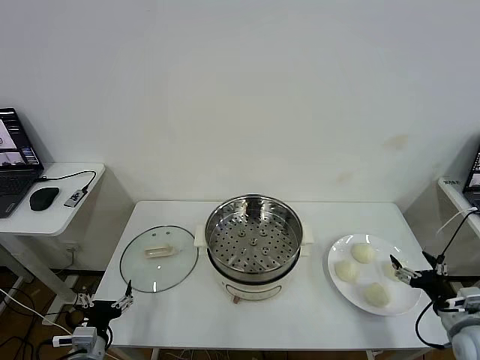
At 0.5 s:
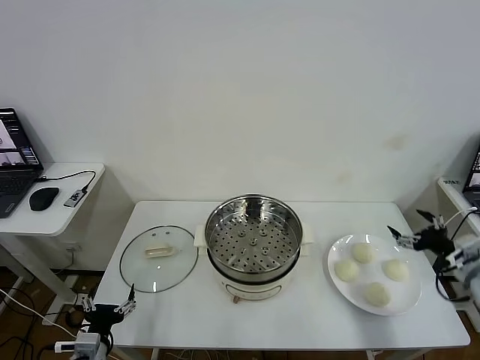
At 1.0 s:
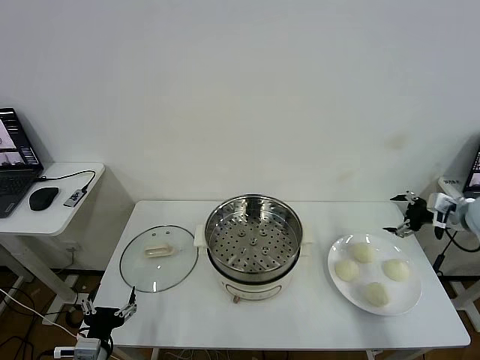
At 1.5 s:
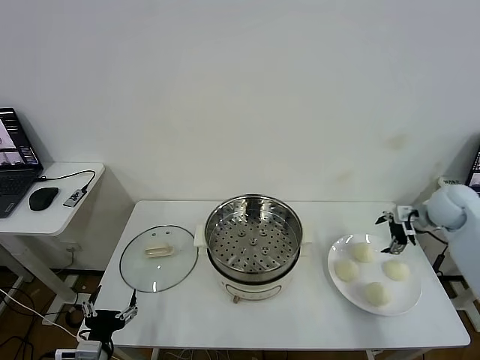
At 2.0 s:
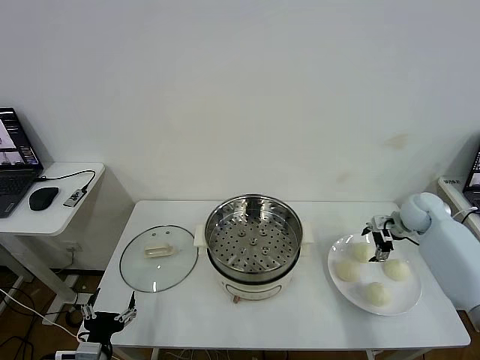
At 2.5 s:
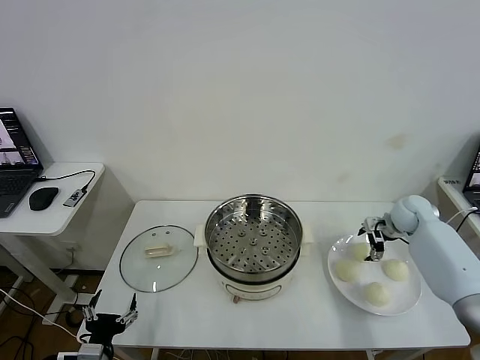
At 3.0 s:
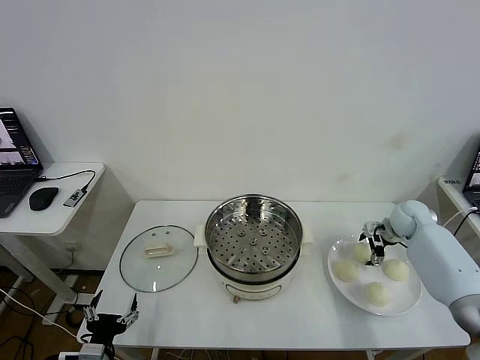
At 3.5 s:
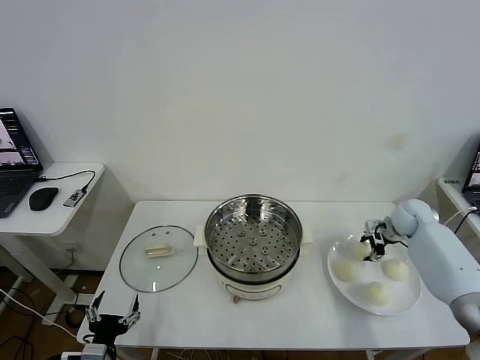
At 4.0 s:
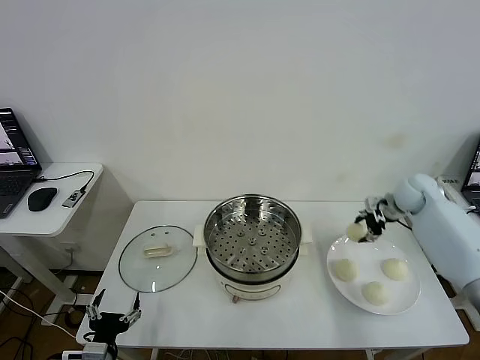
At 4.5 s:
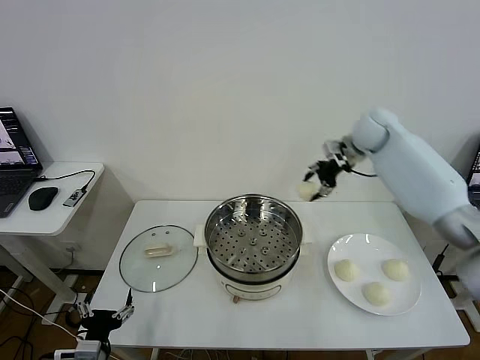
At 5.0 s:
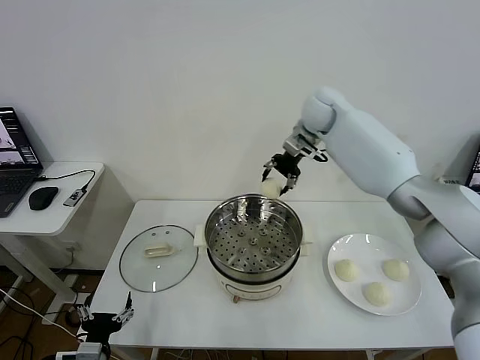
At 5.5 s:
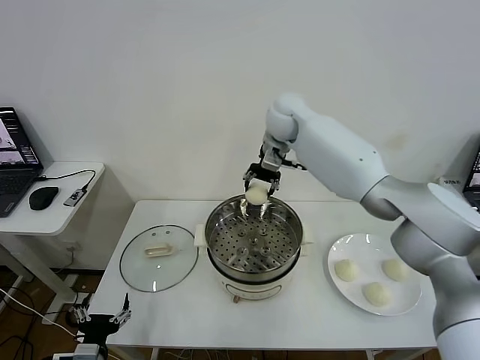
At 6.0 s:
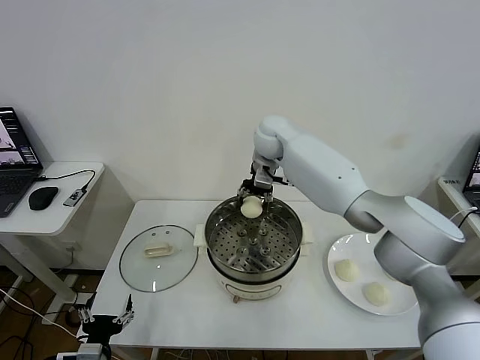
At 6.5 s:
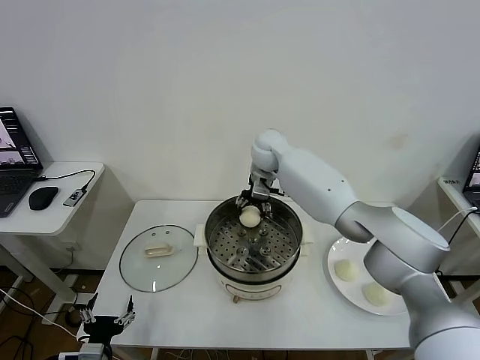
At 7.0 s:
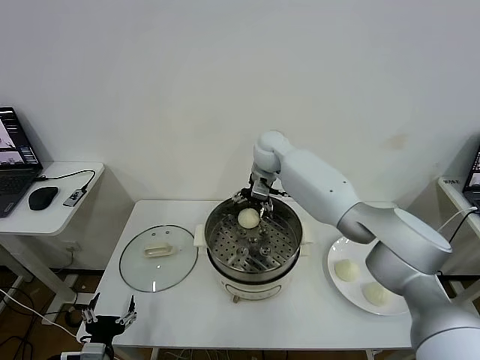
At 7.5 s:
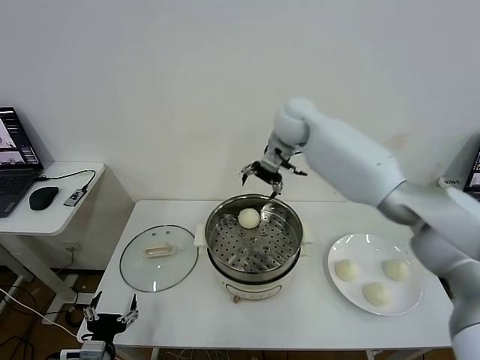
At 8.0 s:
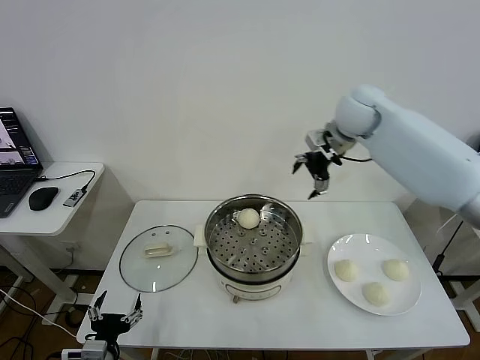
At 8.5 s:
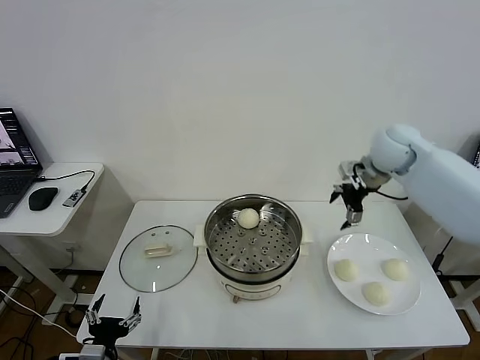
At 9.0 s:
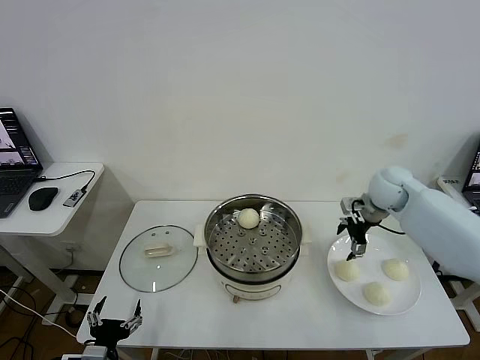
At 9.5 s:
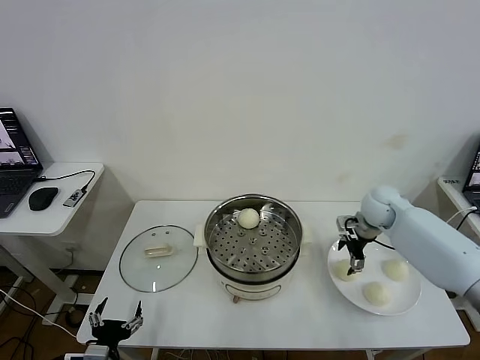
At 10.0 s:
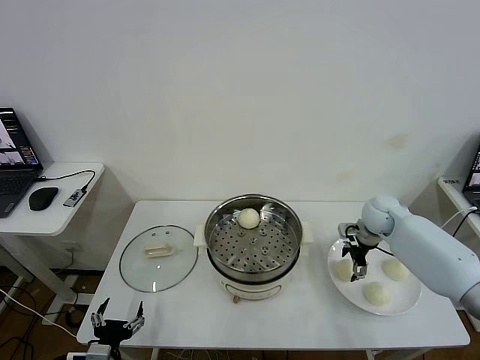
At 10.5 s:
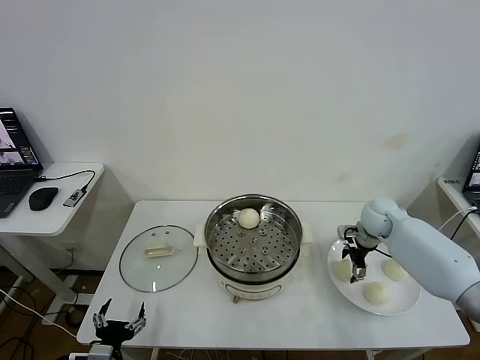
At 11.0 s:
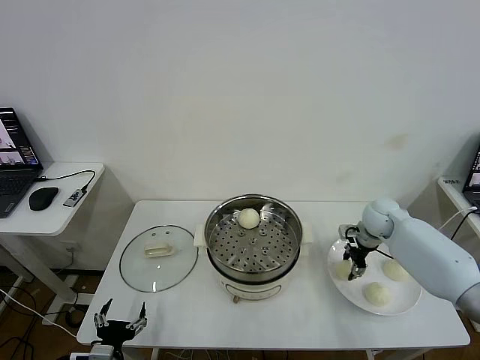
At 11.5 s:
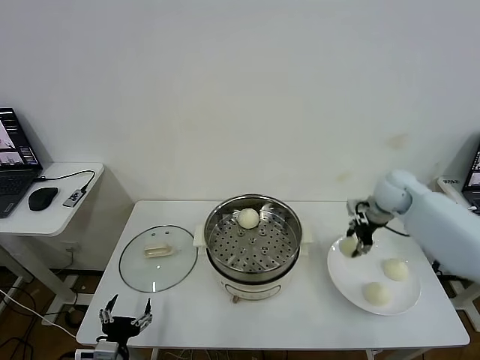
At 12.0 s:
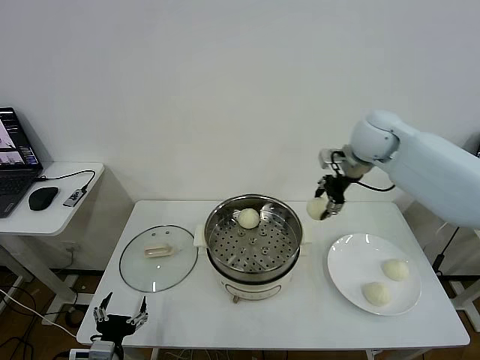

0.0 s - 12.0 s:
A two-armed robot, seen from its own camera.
Task of the whole recording: take steamed baozi put them in steamer then cover it.
Step, 0.0 s - 3.5 s: Grasp the baozi in the plate with right gripper.
Step, 4.0 s - 7.0 s: Place the baozi on the steamer with right gripper.
Step, 7.5 s - 11.0 s: Grasp the baozi in the plate with right gripper.
2.0 s - 4.0 s: The right gripper shifts approximately 10 cm upward, and closes up.
4.0 s - 6.0 s: The right gripper goes approximately 35 cm to the left.
6.0 s - 8.0 s: The right gripper goes roughly 20 cm to the right and upward, and opens up.
8.0 s - 10.0 s: The right gripper shifts approximately 25 cm downward.
10.0 s - 12.0 s: The right gripper moves upward and to the left, approximately 25 cm, and closes.

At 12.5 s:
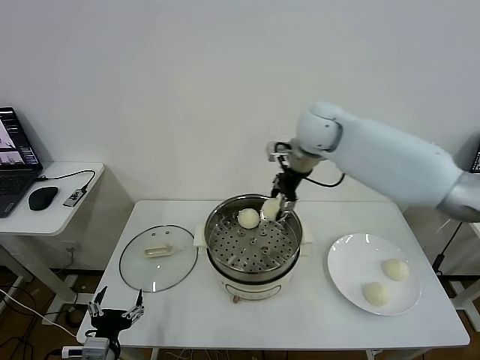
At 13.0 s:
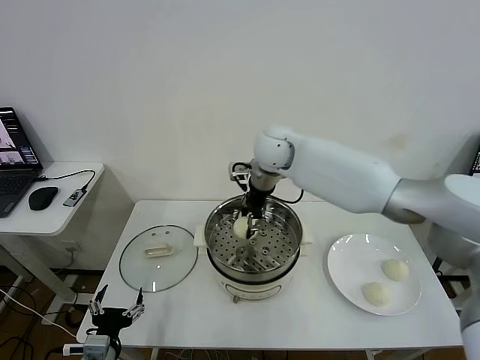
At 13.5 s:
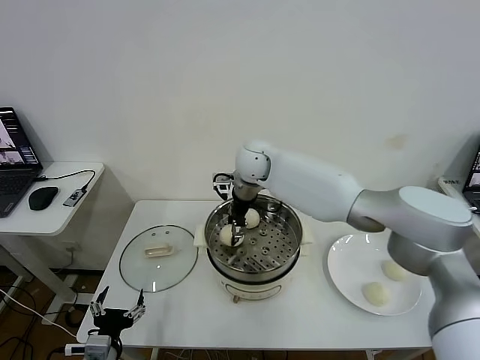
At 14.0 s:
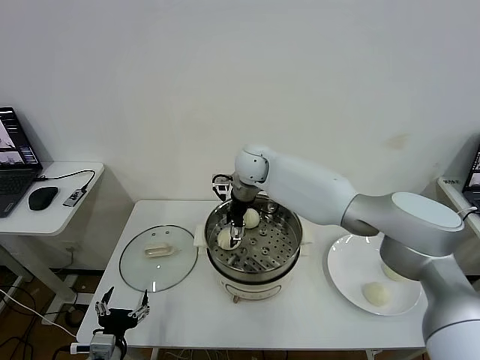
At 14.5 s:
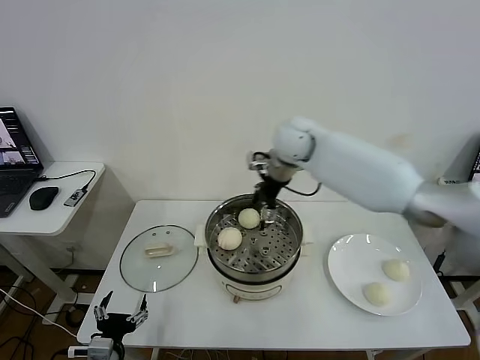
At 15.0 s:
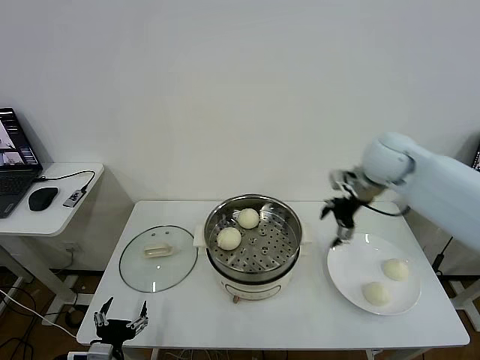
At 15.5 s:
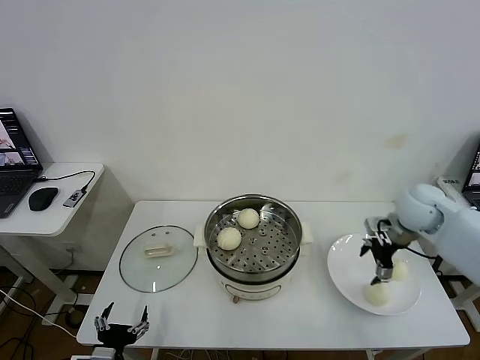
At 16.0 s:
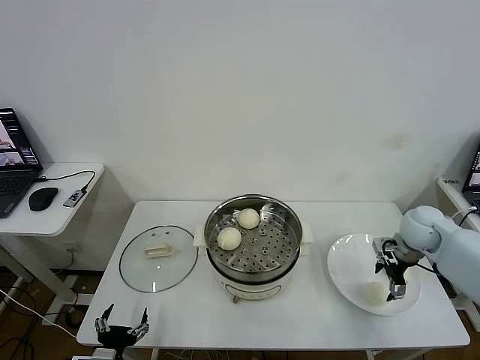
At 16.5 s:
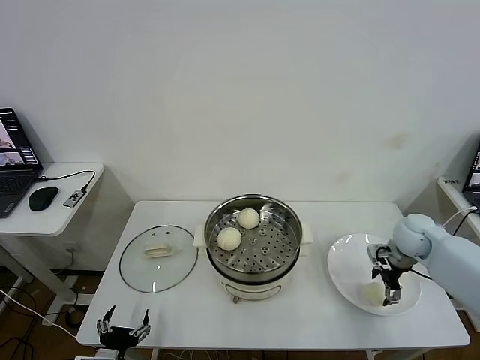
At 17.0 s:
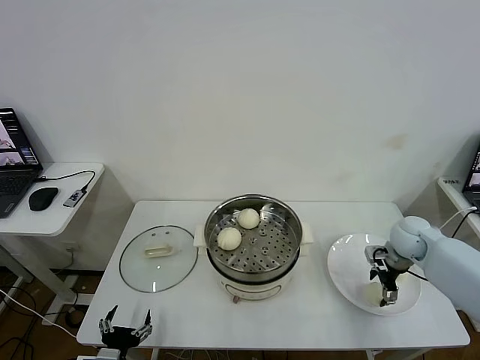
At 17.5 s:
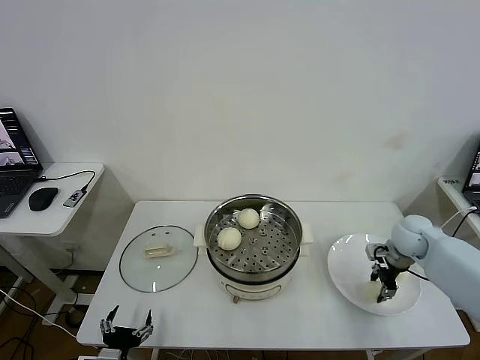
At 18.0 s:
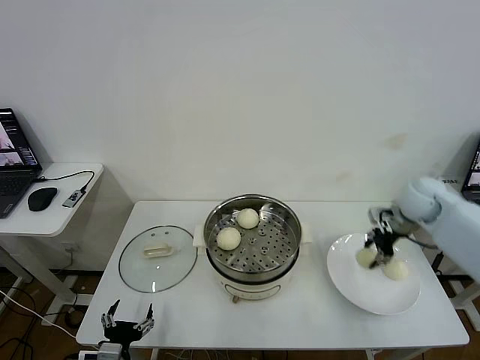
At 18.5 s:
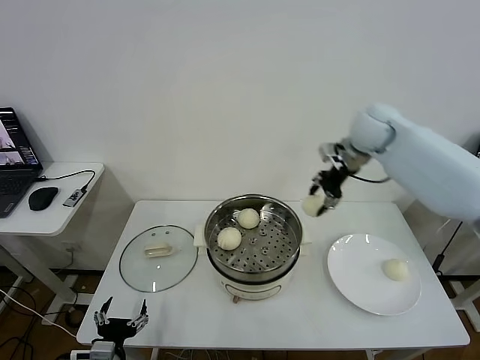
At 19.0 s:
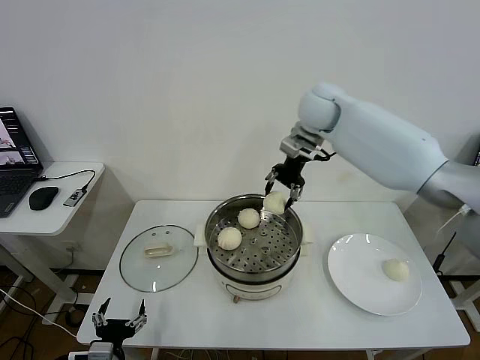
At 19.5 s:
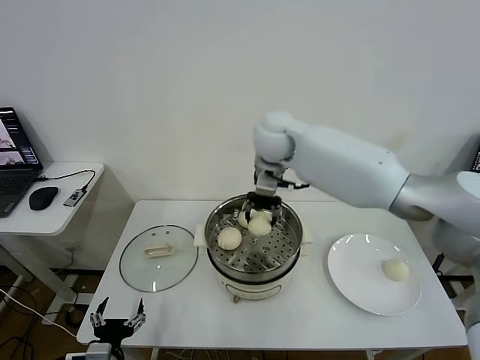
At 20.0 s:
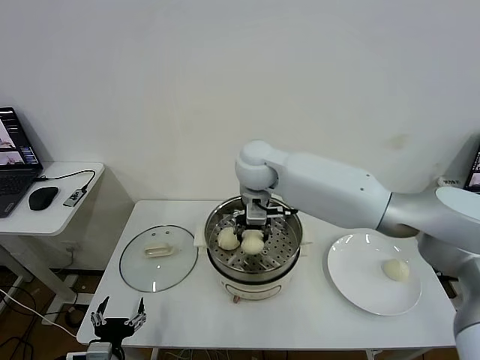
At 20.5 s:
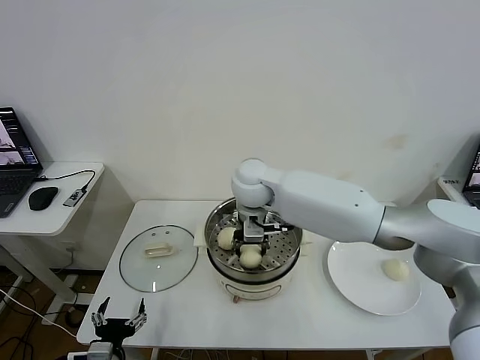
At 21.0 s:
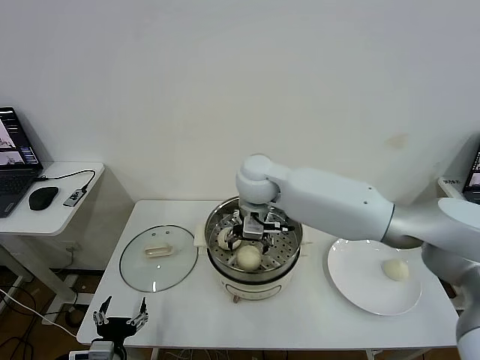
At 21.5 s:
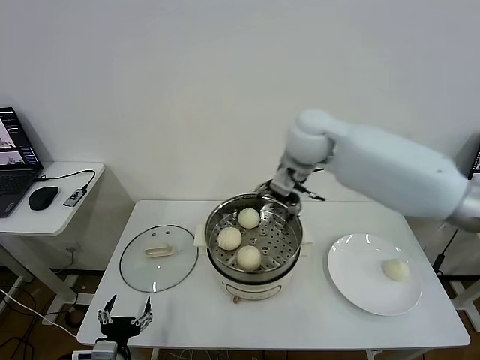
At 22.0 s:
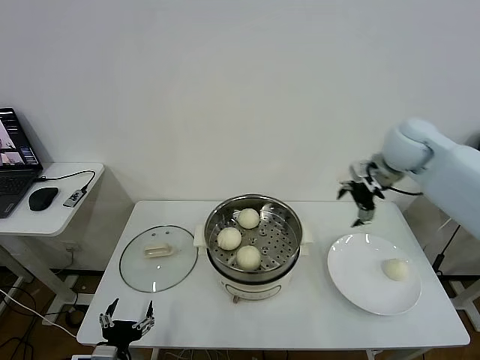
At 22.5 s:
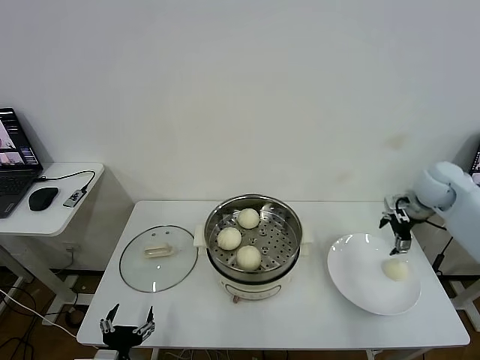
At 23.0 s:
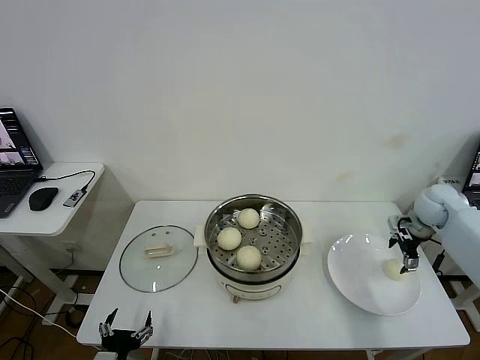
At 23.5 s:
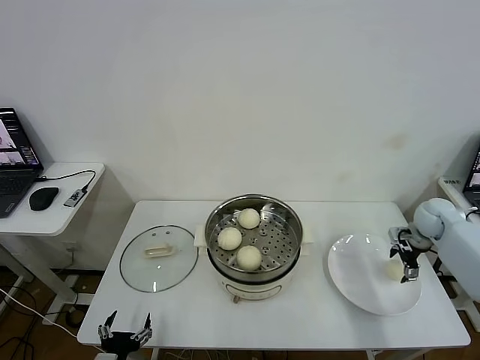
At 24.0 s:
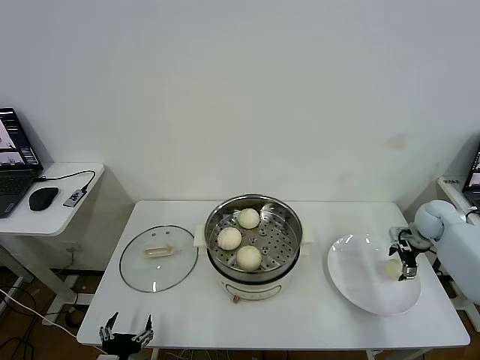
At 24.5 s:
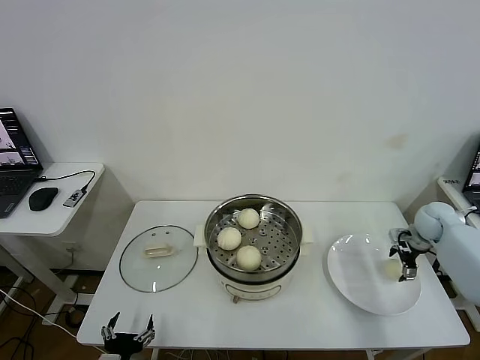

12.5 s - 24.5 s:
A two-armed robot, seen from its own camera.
Task of the whole recording: take steamed baozi put them in steamer then cover it.
Step, 12.5 s - 14.0 s: Place the baozi on the steamer with right gripper.
Step, 14.5 s - 17.5 s: Grasp the baozi in the plate with right gripper.
Step, 18.0 s - 21.0 s: Place the baozi on the steamer with right gripper.
12.5 s - 14.5 s: The right gripper reaches roughly 10 cm to the left, then returns, and opens its fingers.
14.5 s - 16.5 s: The right gripper moves to the right and downward, roughly 35 cm.
16.5 s - 18.5 s: The right gripper moves upward, to the left and forward, roughly 30 cm, and closes up.
18.5 s - 20.5 s: The right gripper shifts some 25 cm to the left and downward.
20.5 s - 22.5 s: The right gripper heads to the right, covering approximately 40 cm, and opens its fingers.
22.5 s - 24.5 s: The right gripper moves downward and to the right, some 15 cm.

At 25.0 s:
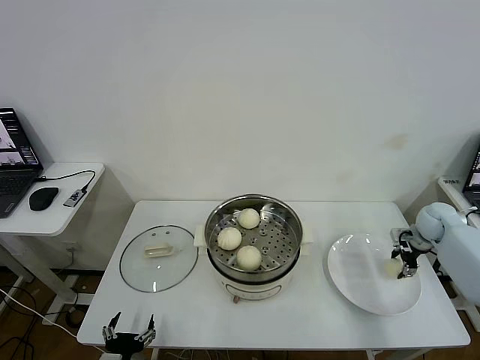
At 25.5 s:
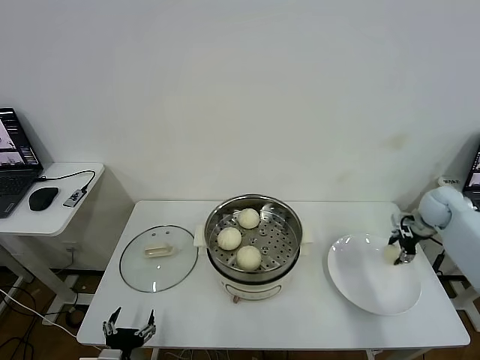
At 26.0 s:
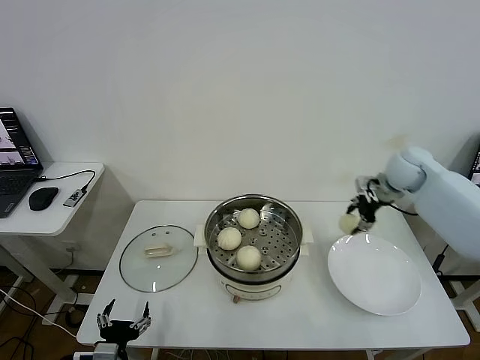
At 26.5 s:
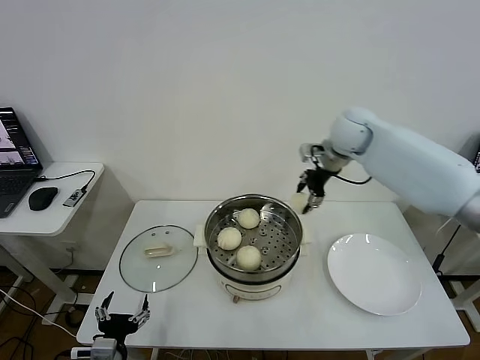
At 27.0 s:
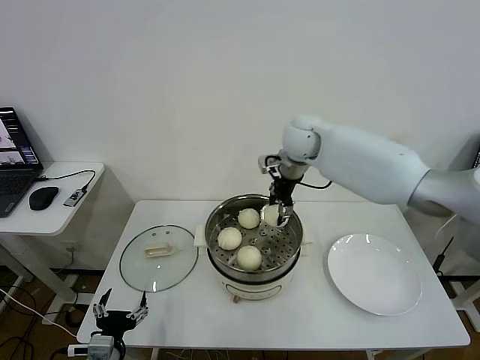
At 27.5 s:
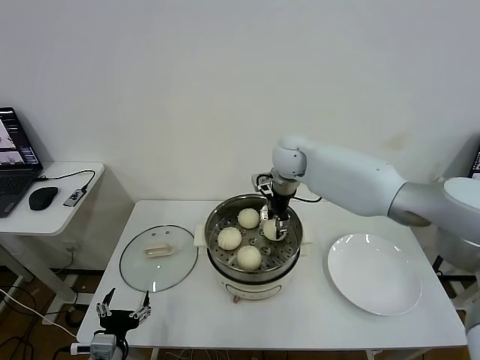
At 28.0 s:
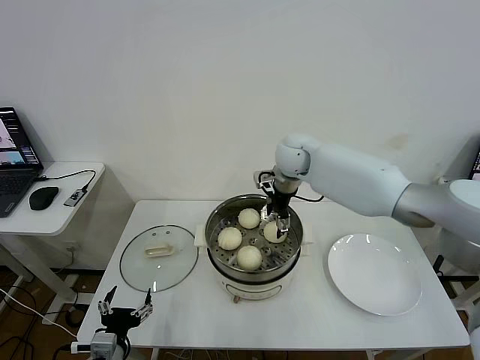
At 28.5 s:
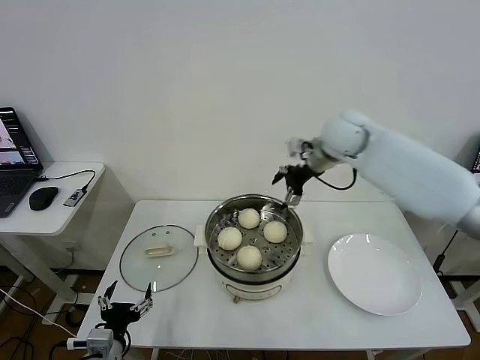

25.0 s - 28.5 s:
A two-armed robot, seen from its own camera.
Task of the whole recording: take steamed baozi put them in steamer then cover it.
Step, 25.5 s - 28.0 s: Place the baozi on the steamer with right gripper.
25.0 s - 27.0 s: The right gripper moves to the left and upward, about 40 cm.
27.0 s - 28.5 s: The right gripper heads to the right, covering roughly 10 cm, and opens.
